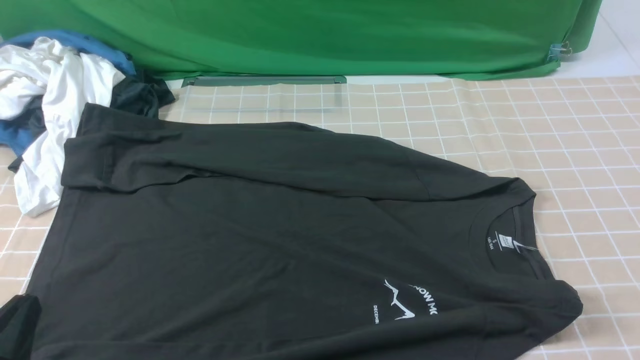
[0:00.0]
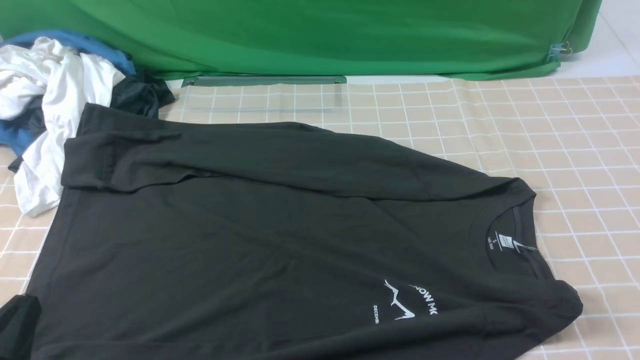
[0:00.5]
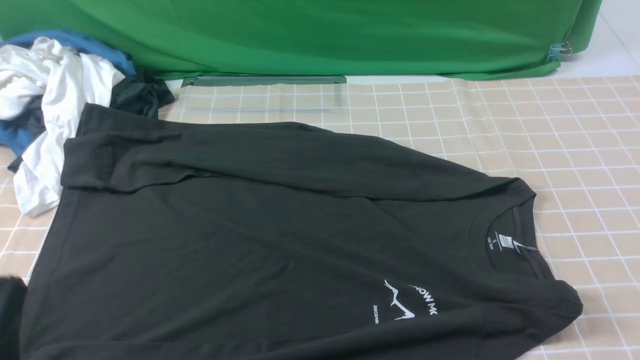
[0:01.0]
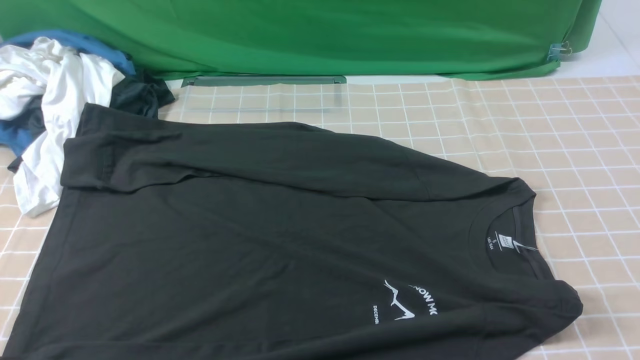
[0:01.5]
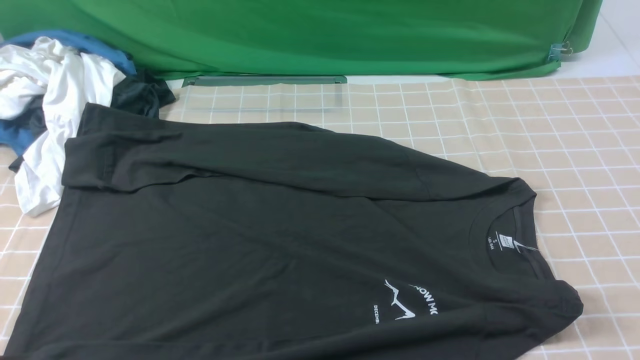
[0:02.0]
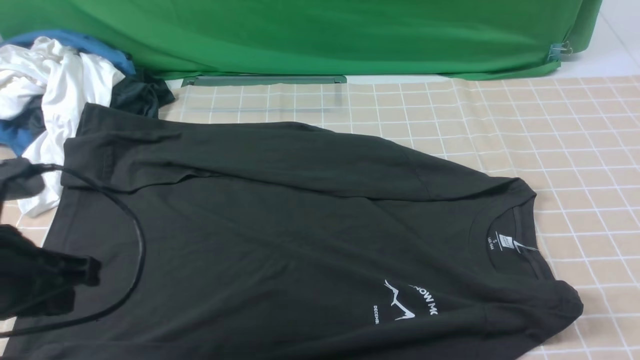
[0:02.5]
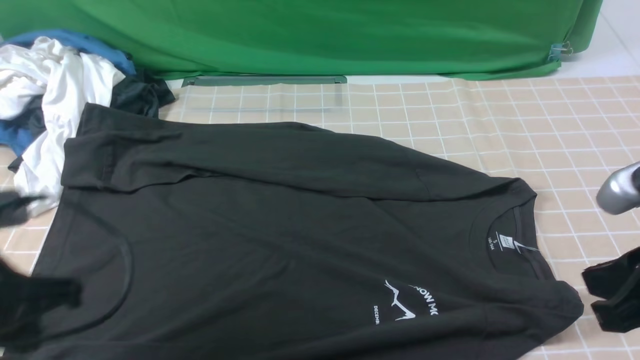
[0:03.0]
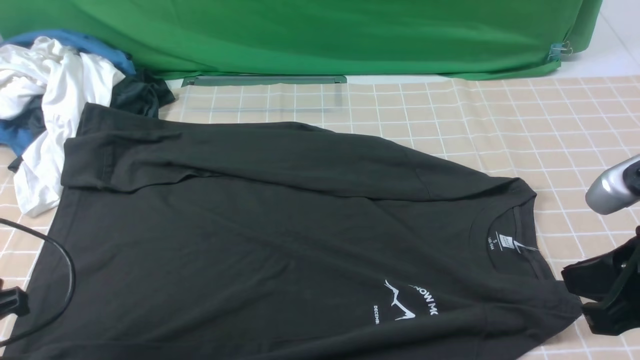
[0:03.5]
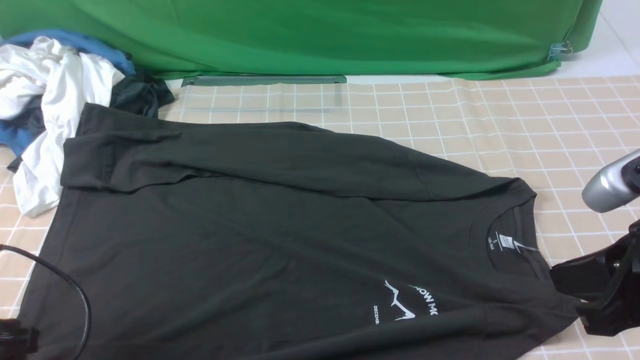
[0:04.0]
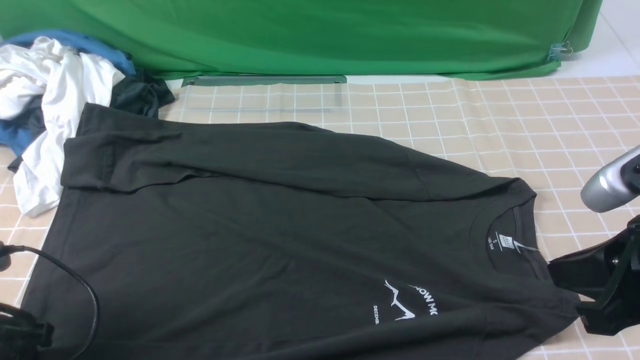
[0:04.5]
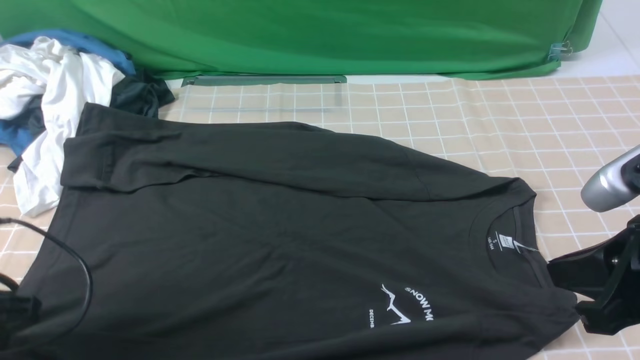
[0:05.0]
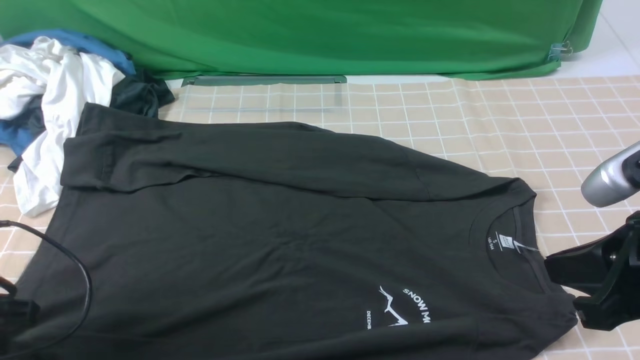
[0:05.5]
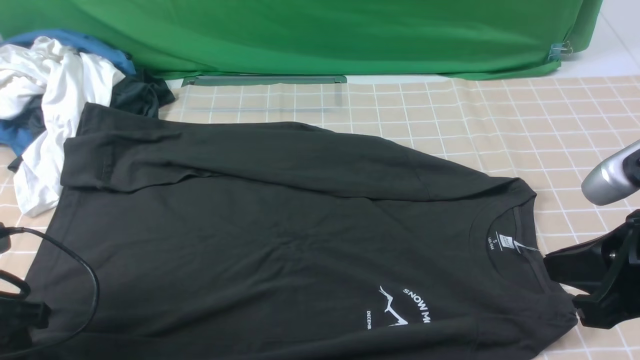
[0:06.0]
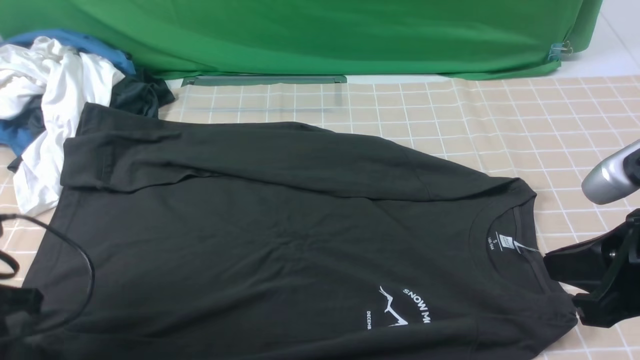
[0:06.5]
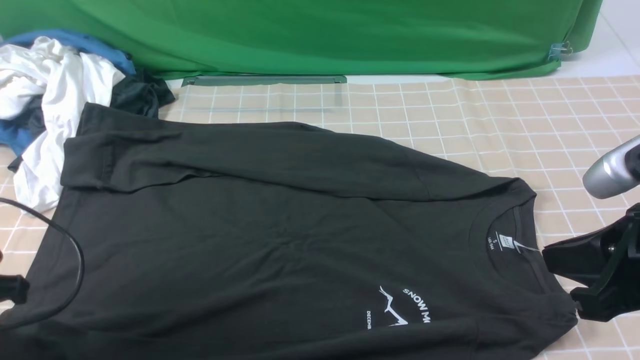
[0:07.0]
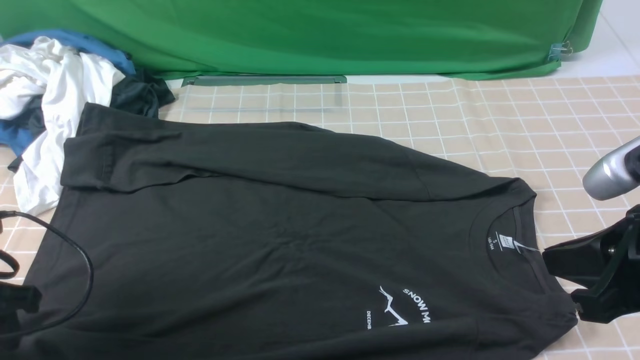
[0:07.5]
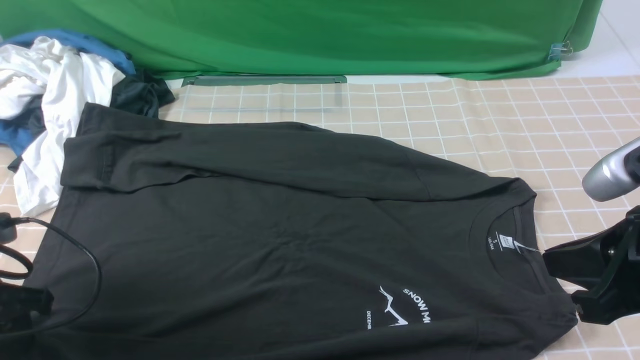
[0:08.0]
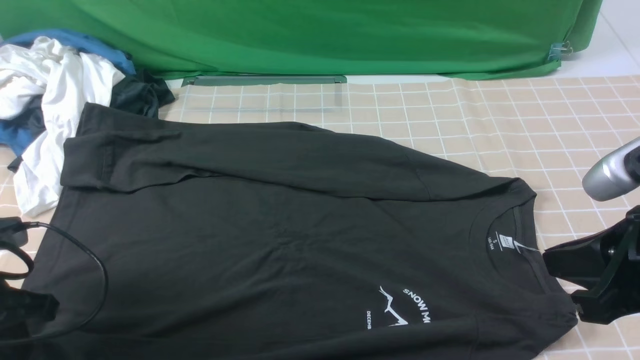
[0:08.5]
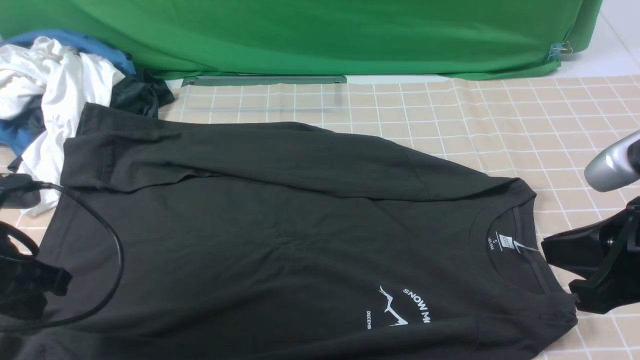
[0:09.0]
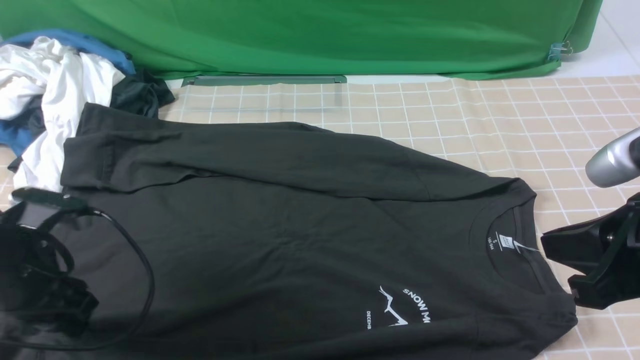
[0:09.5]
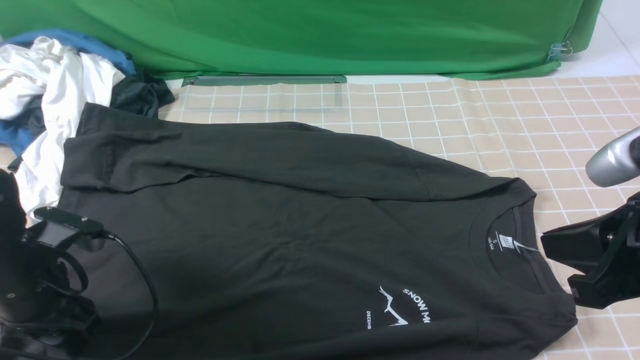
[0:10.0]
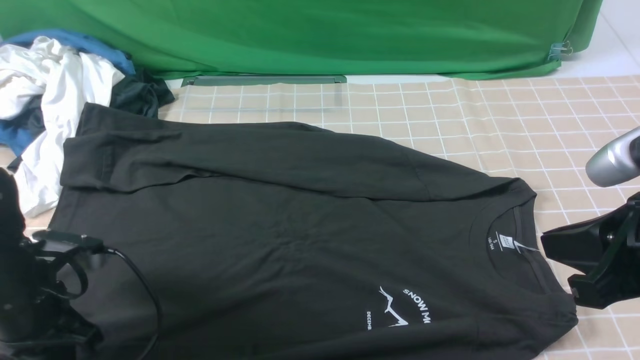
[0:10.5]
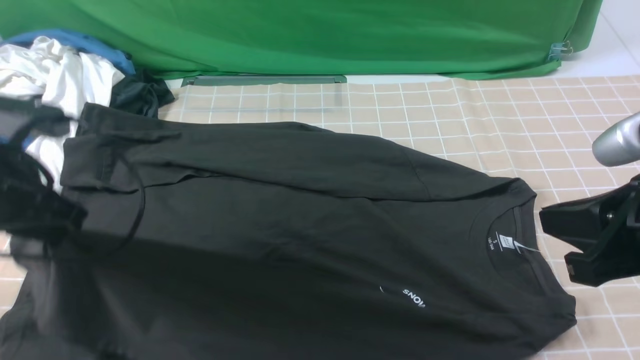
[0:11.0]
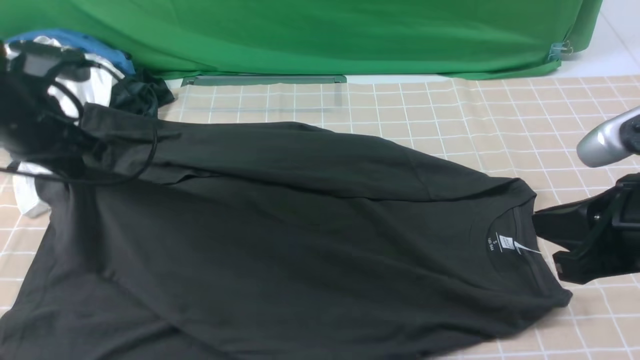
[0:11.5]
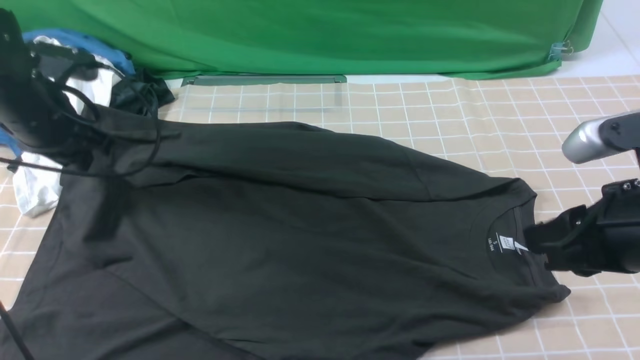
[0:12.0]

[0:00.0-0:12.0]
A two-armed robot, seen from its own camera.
Step, 0:00.0 to 0:10.5: use the left arm to clamp the cuff closest to it.
0:00.0 to 0:02.0: The left gripper goes about 15 cm upward.
0:02.0 to 0:04.0: The left gripper shifts roughly 15 cm downward, forward and to the left, and opens; the right gripper goes approximately 10 cm forward and to the left.
0:04.0 to 0:06.0: The left gripper closes its fingers.
0:06.0 to 0:08.0: The left gripper closes, then opens again.
0:08.0 to 0:10.0: The left gripper is displaced to the right by some 5 cm, and closes and opens again.
0:10.0 to 0:12.0: The left gripper travels forward and upward by roughly 15 cm, and closes and opens again; the right gripper opens up.

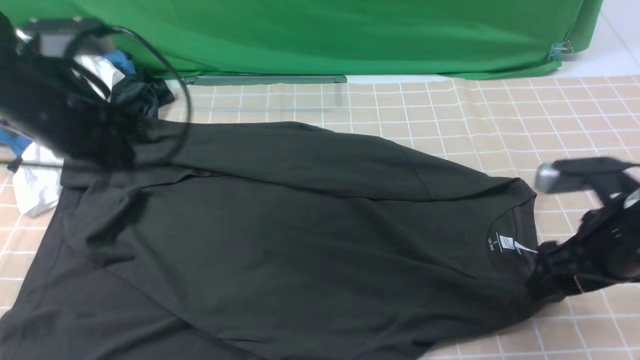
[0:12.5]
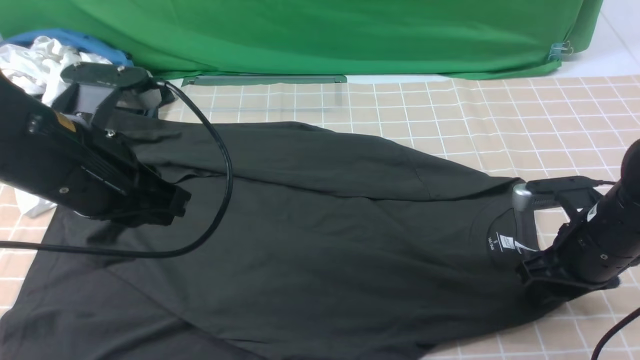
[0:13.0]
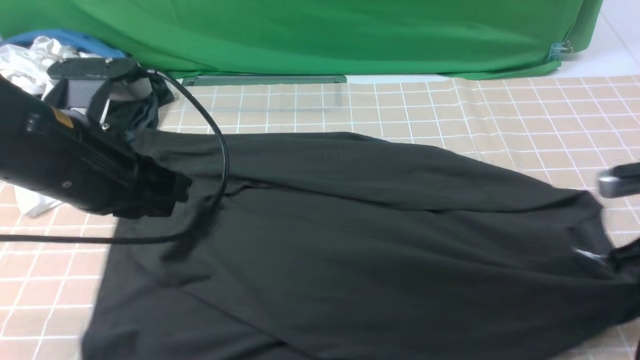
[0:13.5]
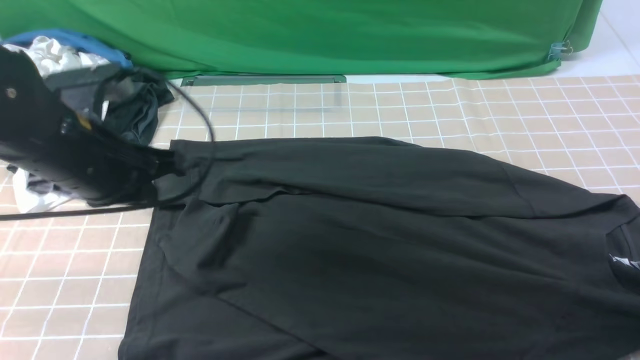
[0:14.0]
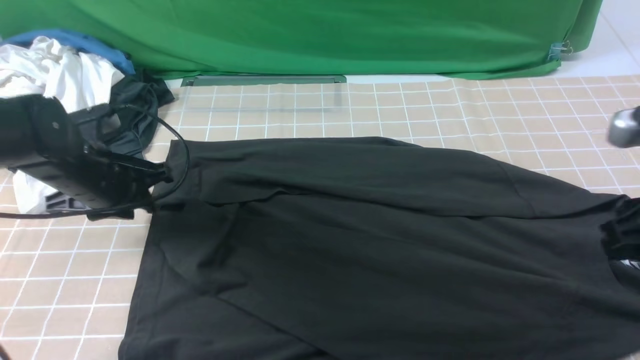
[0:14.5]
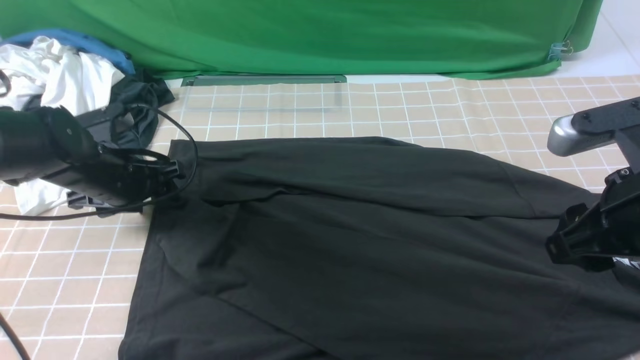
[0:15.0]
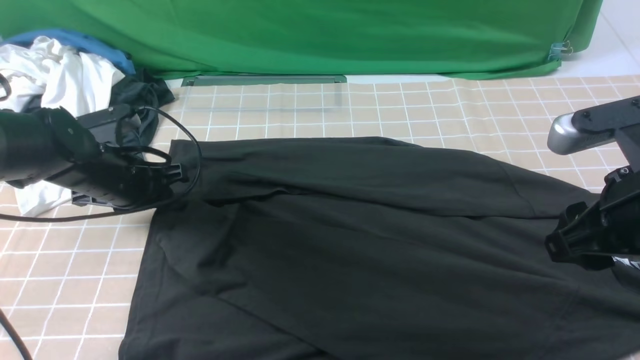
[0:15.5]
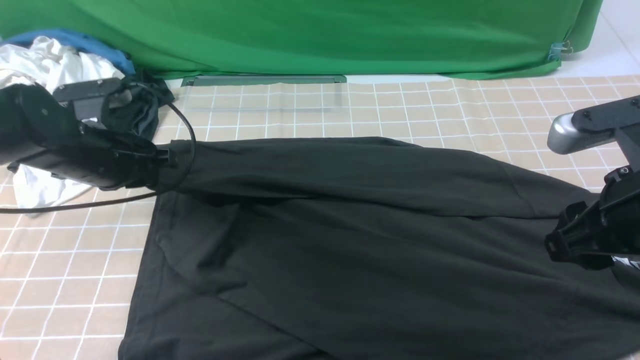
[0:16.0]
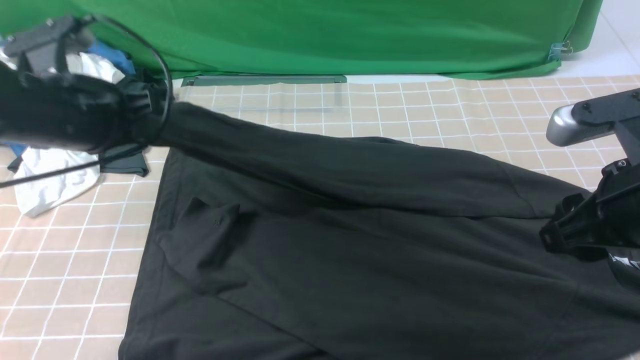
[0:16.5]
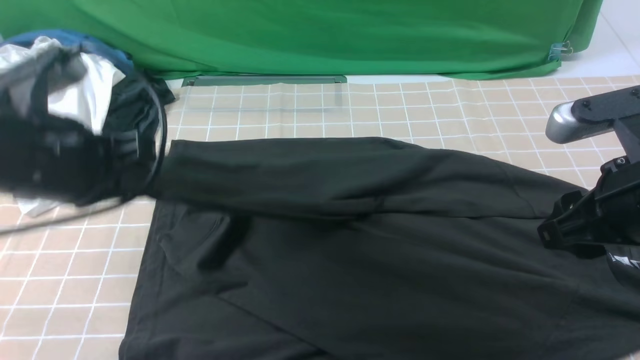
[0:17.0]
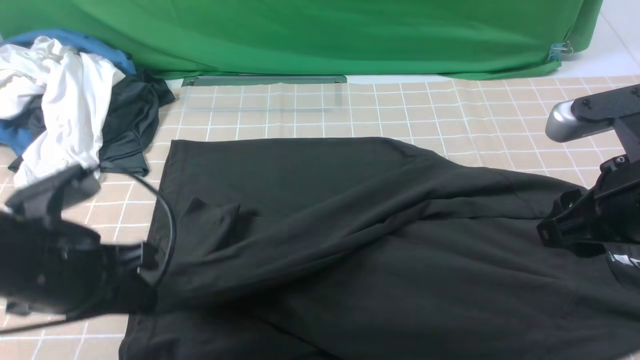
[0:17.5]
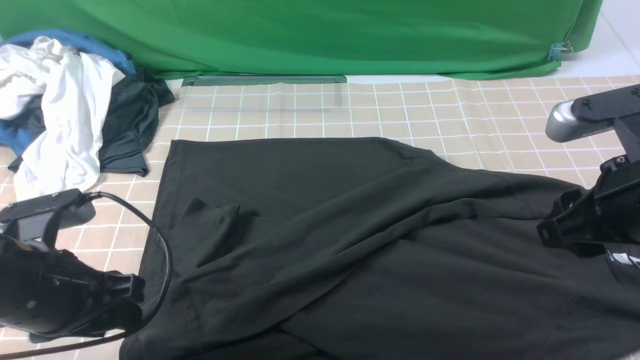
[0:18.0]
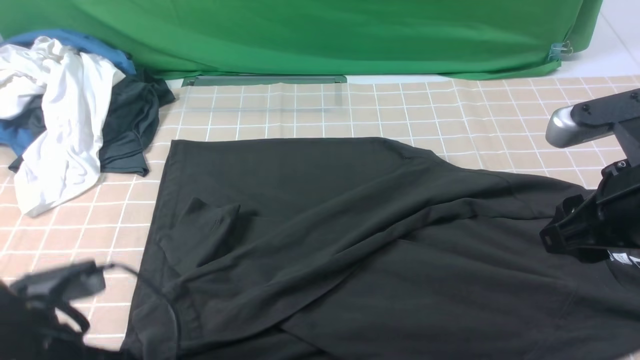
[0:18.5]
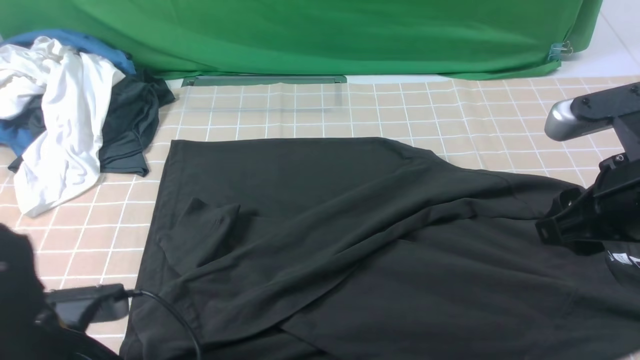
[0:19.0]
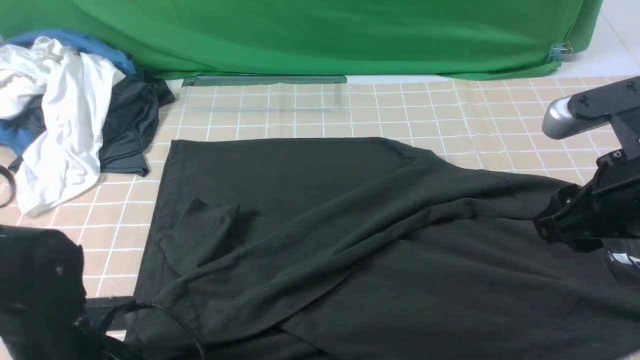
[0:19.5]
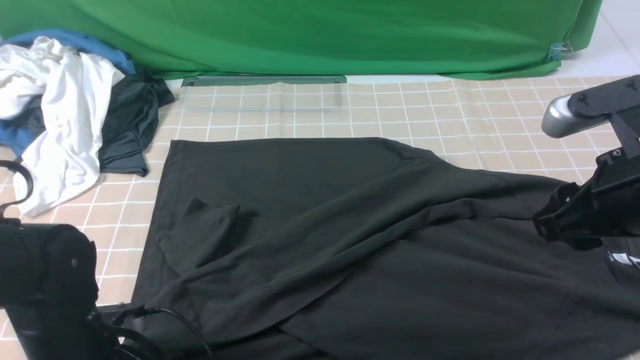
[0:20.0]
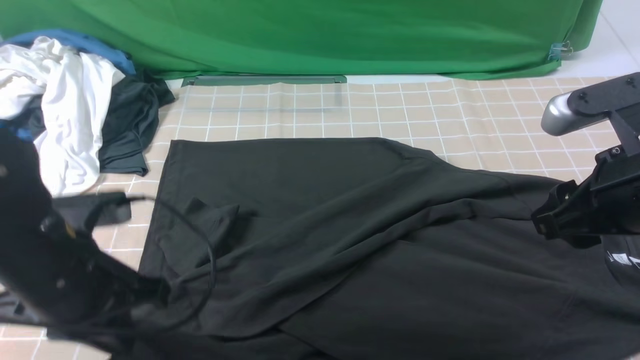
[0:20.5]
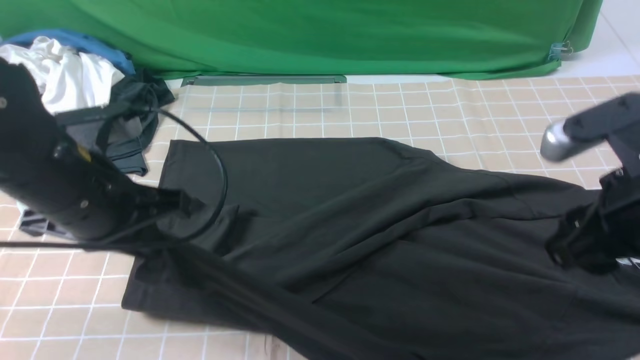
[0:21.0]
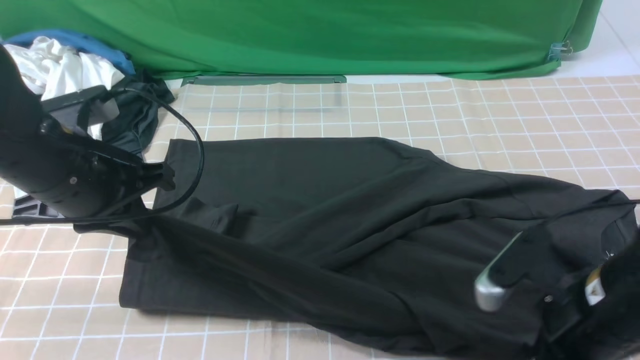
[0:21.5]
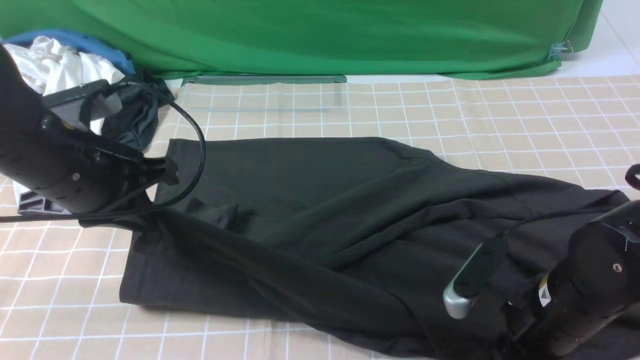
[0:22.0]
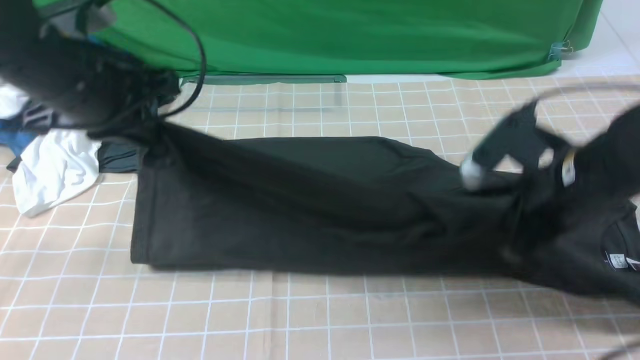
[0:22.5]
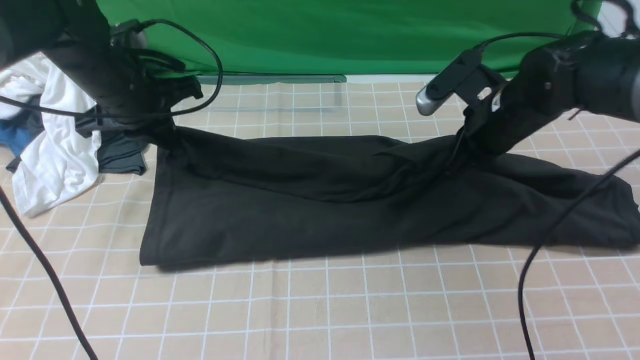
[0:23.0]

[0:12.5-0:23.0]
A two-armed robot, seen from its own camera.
Step, 0:12.5 to 0:15.5: use the left arm to clamp the cuff farthest from it.
Step, 0:16.0 to 0:17.5: use the left arm to drag and drop the cuff onto the cuff closest to the left arm.
Step, 0:18.0 to 0:22.0: use both arms simultaneously to clamp the lower edge of the clothing fabric.
0:12.5 to 0:14.5: The right gripper is displaced upward by approximately 10 cm, and closes and opens again. Meanwhile the left gripper goes roughly 10 cm downward, and opens up.
0:14.5 to 0:16.5: The left gripper is displaced upward by roughly 10 cm, and closes its fingers.
0:16.5 to 0:19.0: The left gripper travels backward and downward by some 20 cm, and opens.
0:19.0 to 0:21.0: The left gripper heads forward and upward, covering some 15 cm, and closes its fingers.
0:21.0 to 0:23.0: Both grippers travel together forward, about 15 cm. The right gripper closes up.
